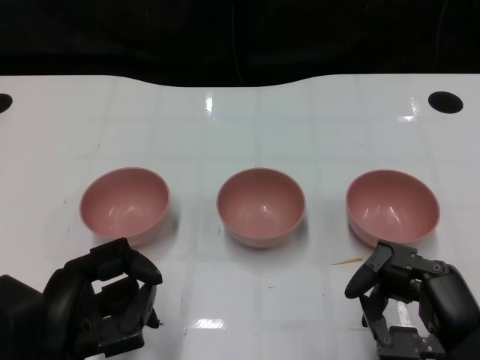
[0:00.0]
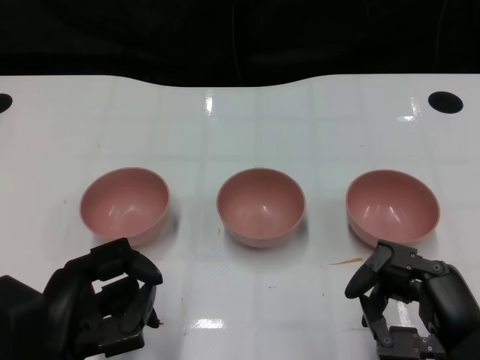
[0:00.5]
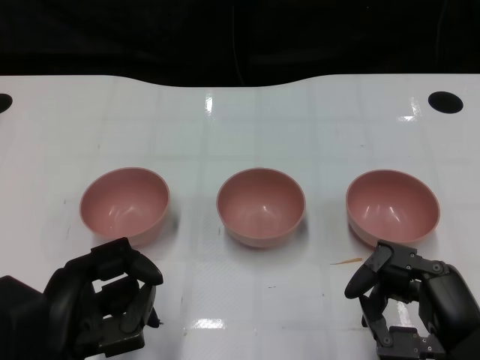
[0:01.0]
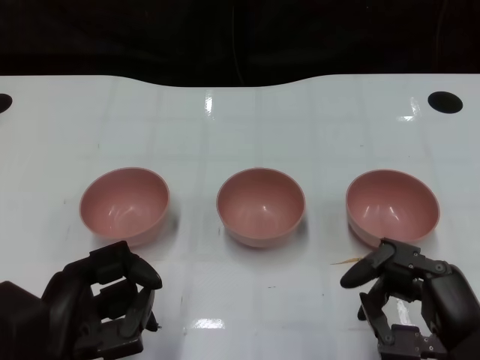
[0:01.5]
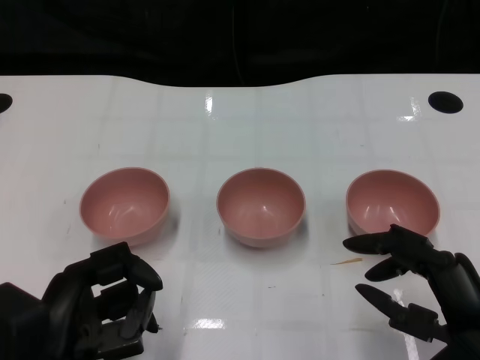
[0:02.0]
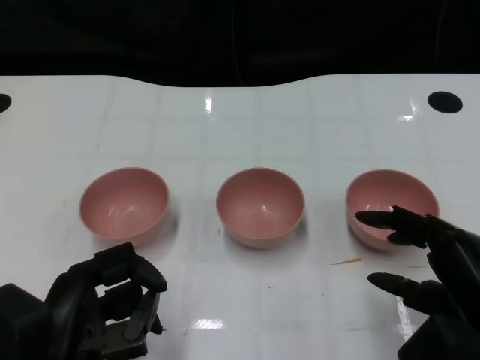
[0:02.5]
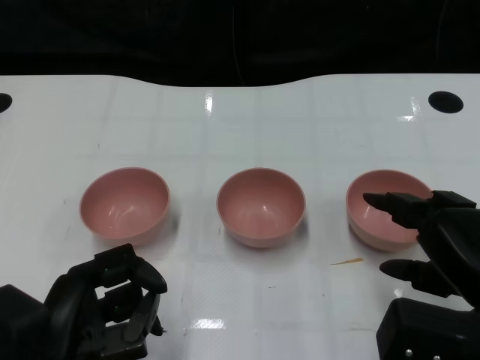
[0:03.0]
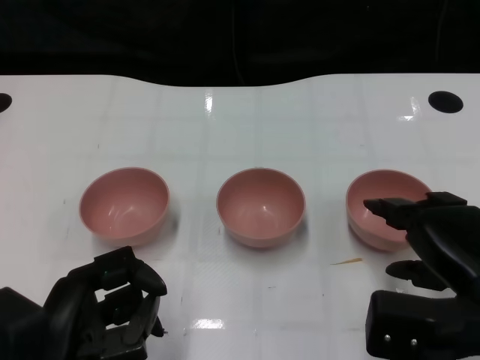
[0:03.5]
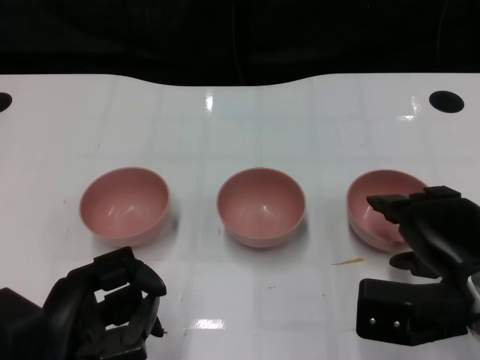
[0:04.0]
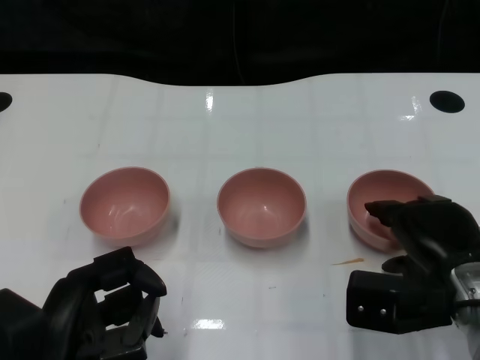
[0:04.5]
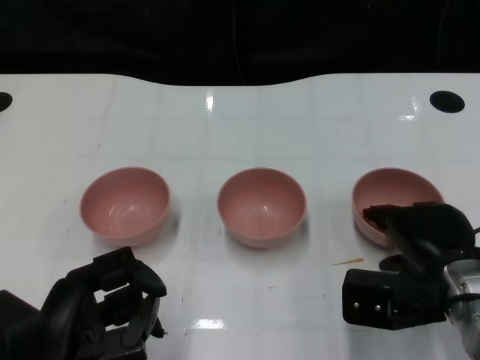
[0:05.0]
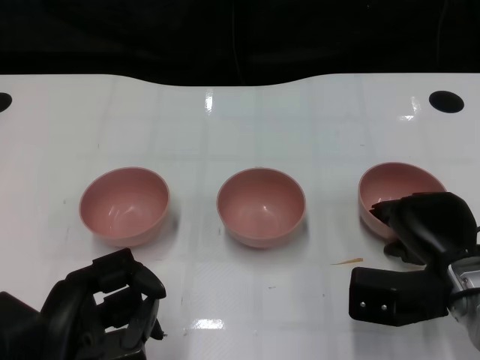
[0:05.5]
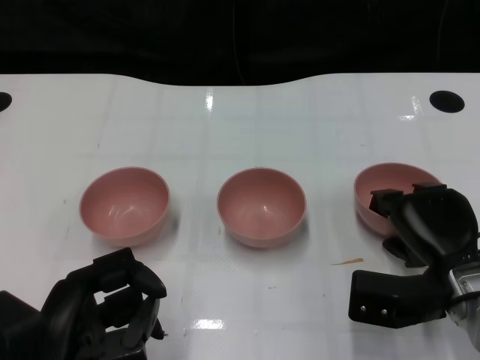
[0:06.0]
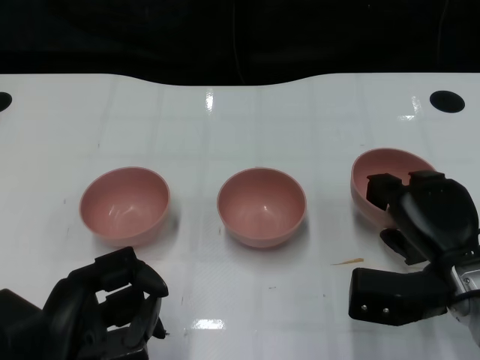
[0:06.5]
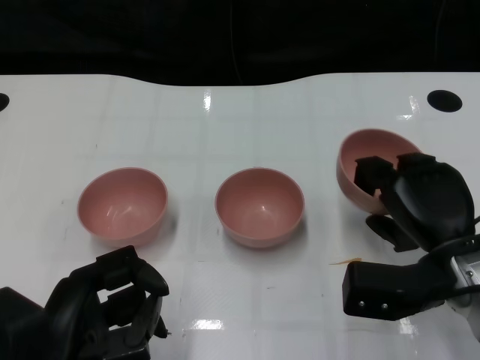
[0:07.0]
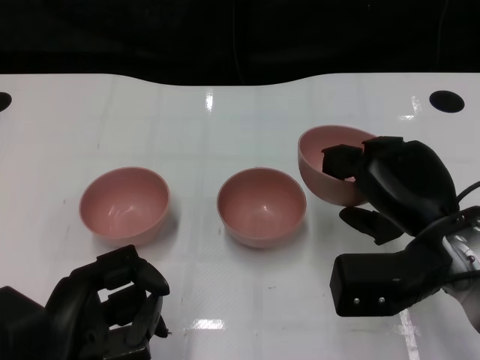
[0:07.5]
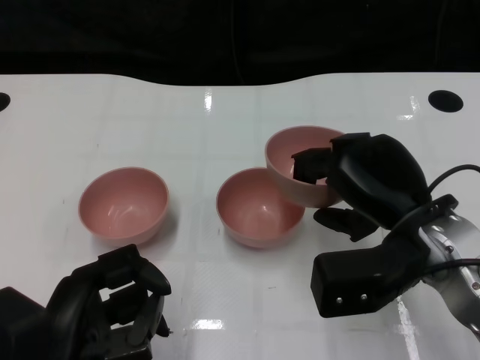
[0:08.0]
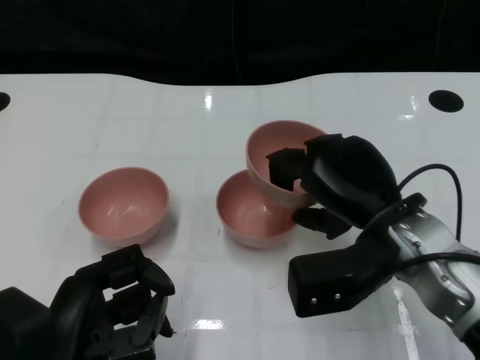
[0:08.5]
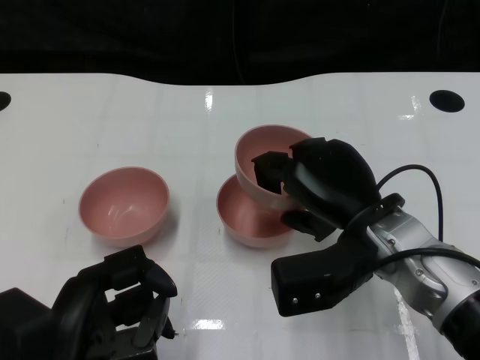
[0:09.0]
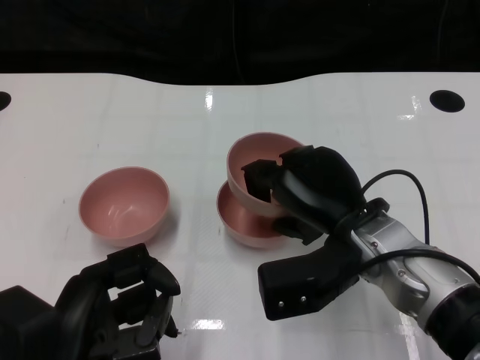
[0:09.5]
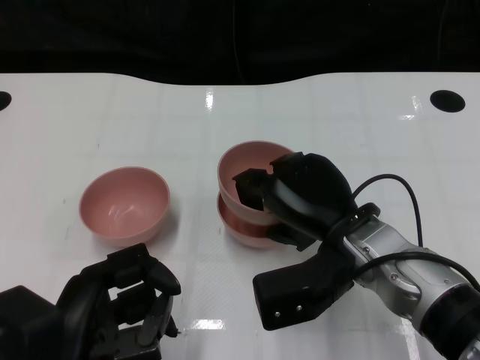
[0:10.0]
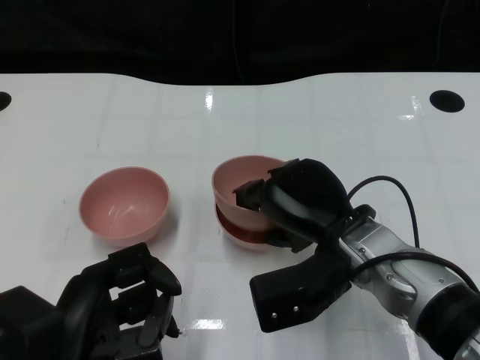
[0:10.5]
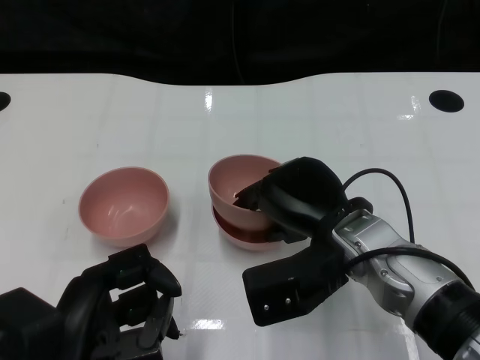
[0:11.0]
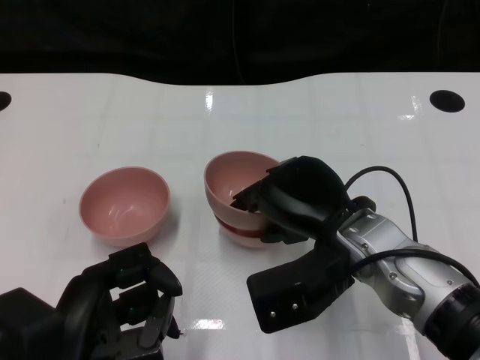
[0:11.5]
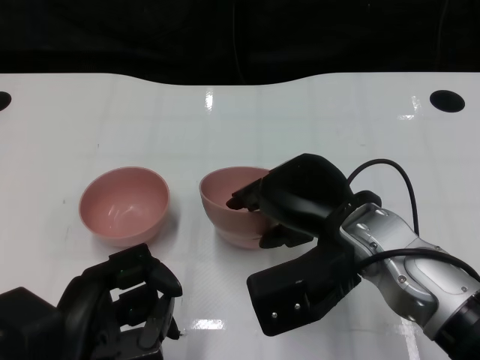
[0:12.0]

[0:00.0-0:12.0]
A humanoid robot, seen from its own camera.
Task of the whole recording: Pick up the bowl on one side of the table and place it on top of the middle bowl, then pick up the bowl on the other side of the table and place it on top of the middle bowls.
Step, 0:01.5 to 0:06.0: Grasp the bowl on the right with the right gripper.
0:02.0 to 0:04.0: The right hand is displaced forward by roughly 10 cm.
0:04.0 to 0:06.0: The right hand moves roughly 5 cm.
0:06.0 to 0:08.0: The right hand is displaced upward by roughly 10 cm.
0:08.0 to 0:10.0: The right hand shifts roughly 5 cm to the left.
0:10.0 to 0:12.0: The hands make only small movements.

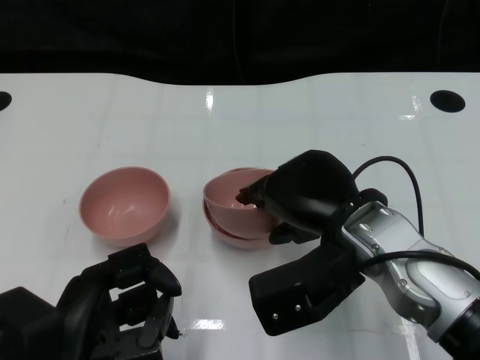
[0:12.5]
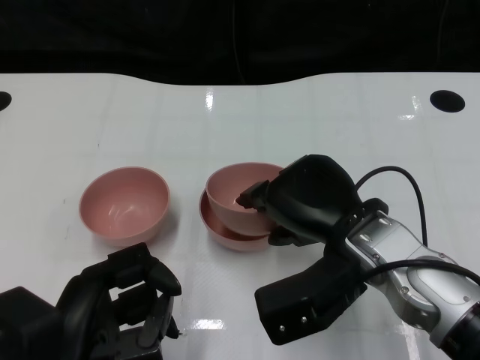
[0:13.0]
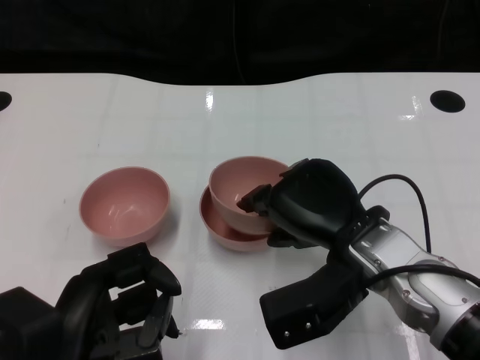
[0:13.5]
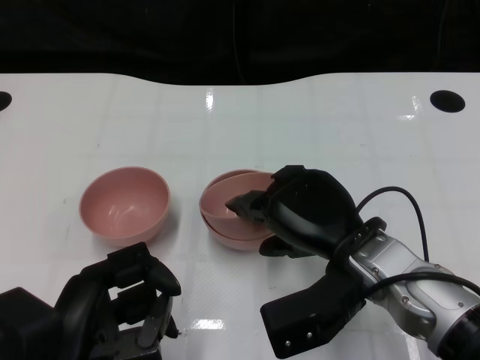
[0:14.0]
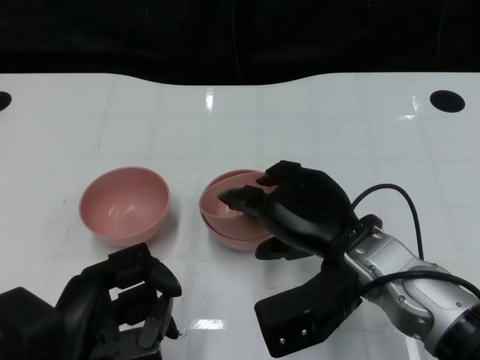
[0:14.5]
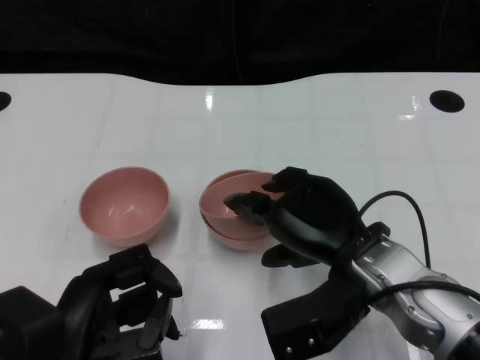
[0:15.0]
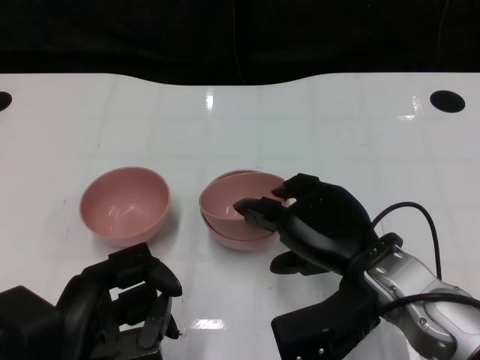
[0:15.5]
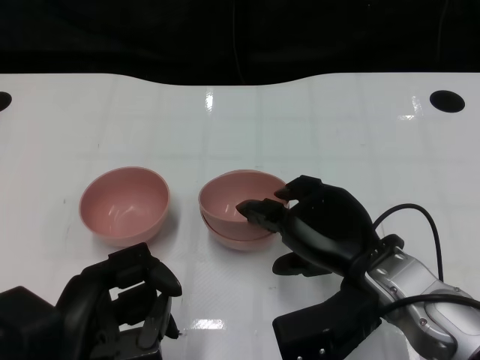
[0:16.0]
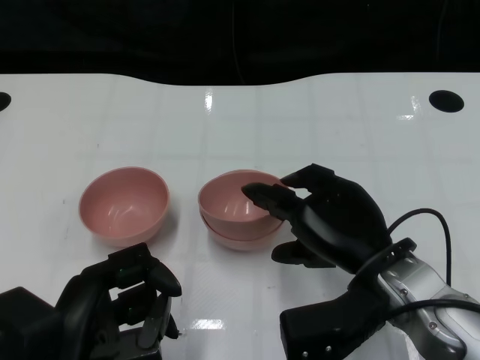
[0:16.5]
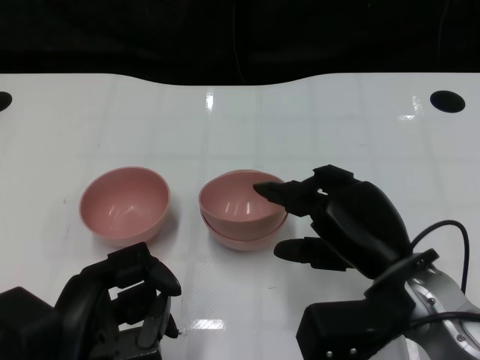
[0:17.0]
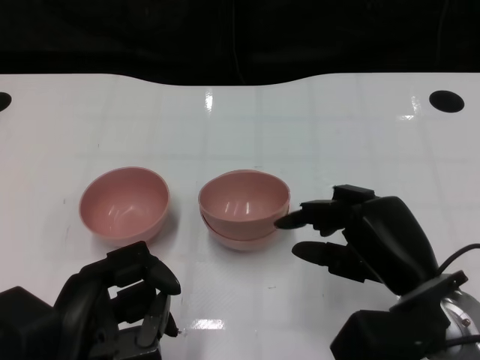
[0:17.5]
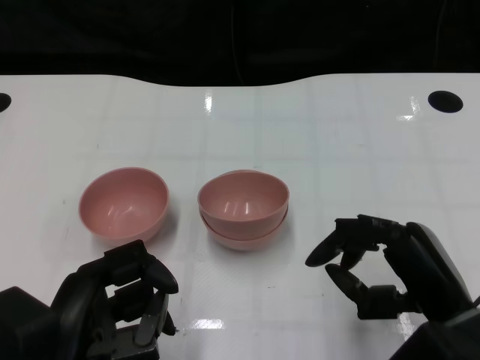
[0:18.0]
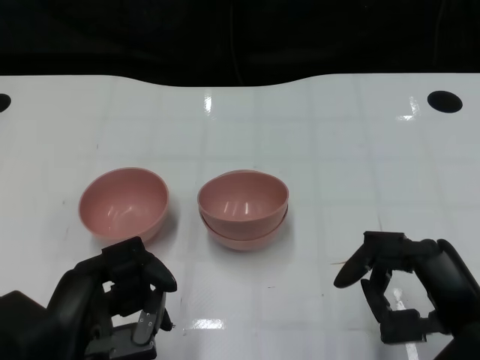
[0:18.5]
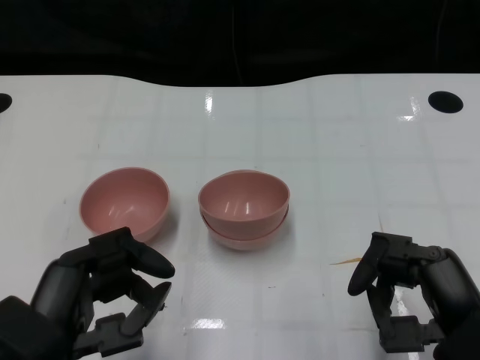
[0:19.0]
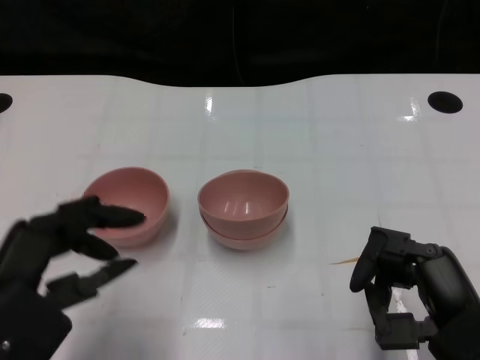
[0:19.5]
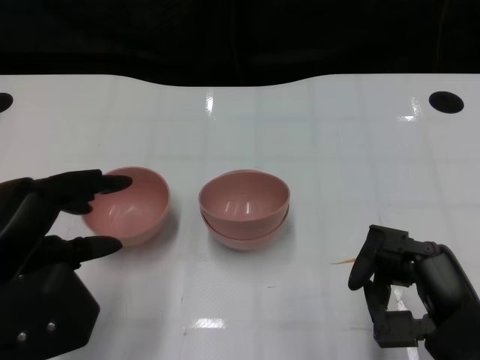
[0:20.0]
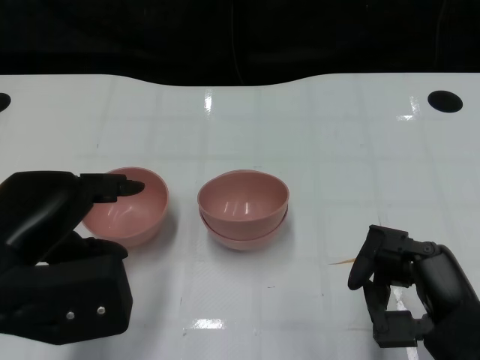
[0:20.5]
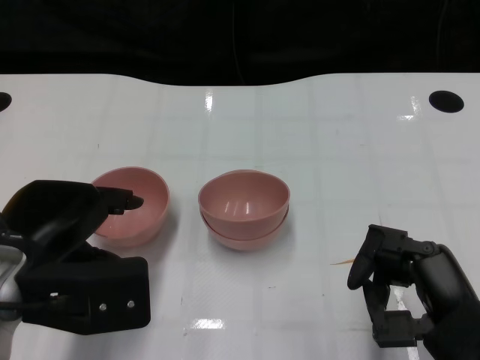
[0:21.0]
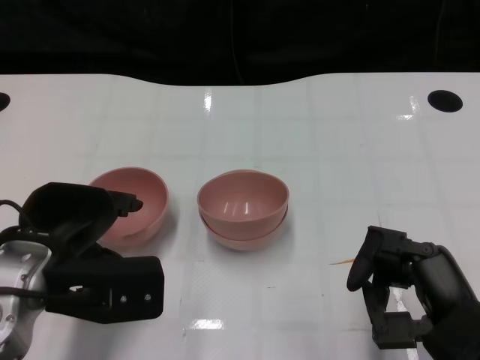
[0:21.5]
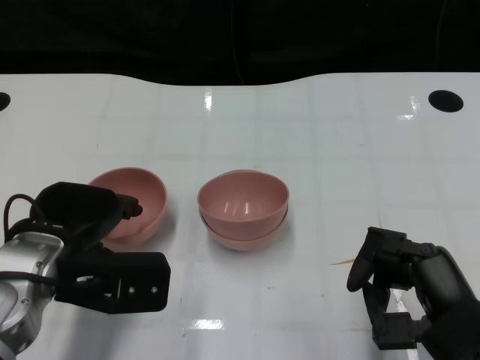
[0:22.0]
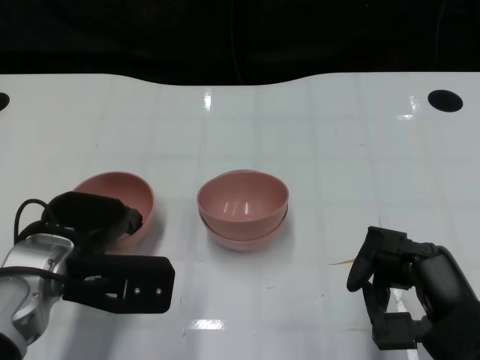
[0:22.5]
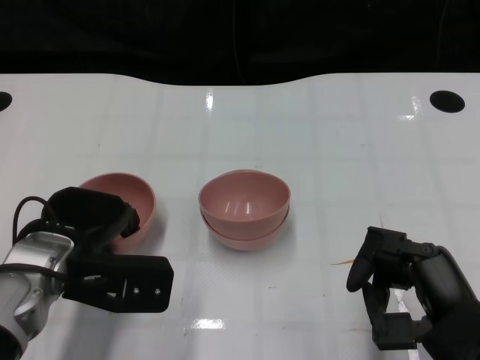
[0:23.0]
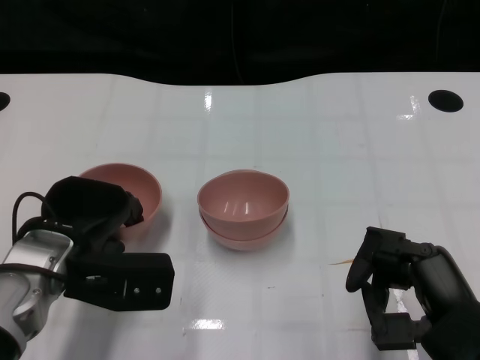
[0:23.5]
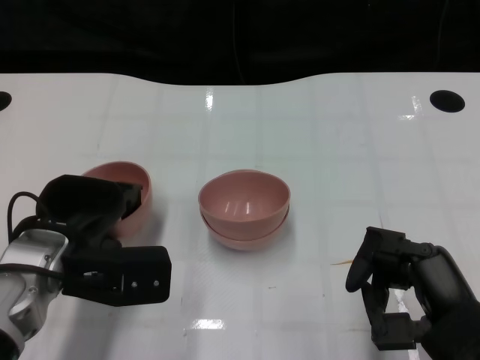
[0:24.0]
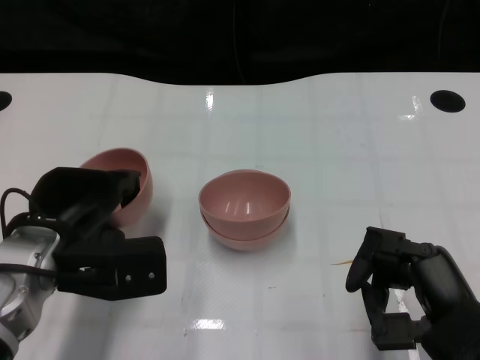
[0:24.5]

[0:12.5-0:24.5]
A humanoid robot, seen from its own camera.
Task of the whole recording: Pick up the bowl on one side of the table and place it on top of the middle bowl, then pick up the bowl on the other side of the table and place it on top of the middle bowls.
Step, 0:12.5 to 0:16.5: Place the bowl on the right onto the bowl in the middle with right gripper.
Step, 0:17.0 to 0:24.0: Grasp the bowl on the left with the left gripper.
0:12.5 to 0:16.5: The hands make only small movements.
0:16.5 to 0:18.5: The right hand travels to the right and backward by some 10 cm.
0:18.5 to 0:20.5: The left hand goes about 10 cm forward and upward.
0:20.5 to 0:22.5: The left hand goes roughly 10 cm downward and forward.
0:22.5 to 0:24.5: The hands stay close to where they were, moving slightly.

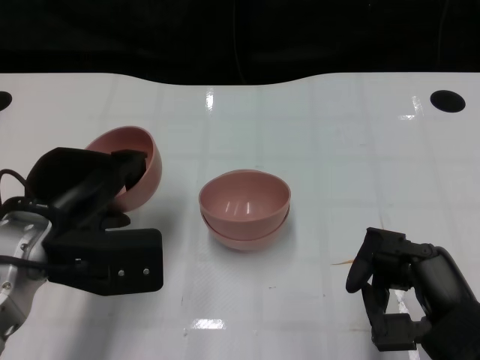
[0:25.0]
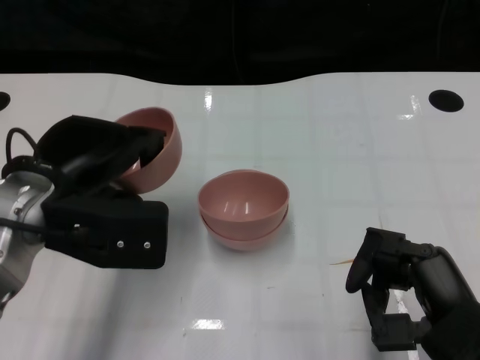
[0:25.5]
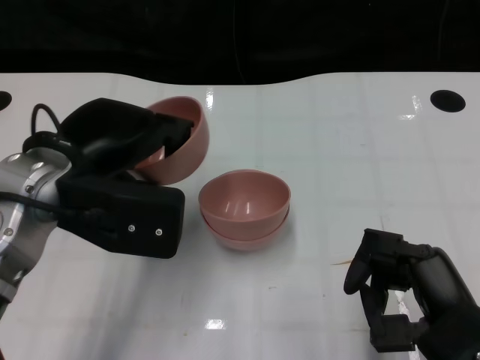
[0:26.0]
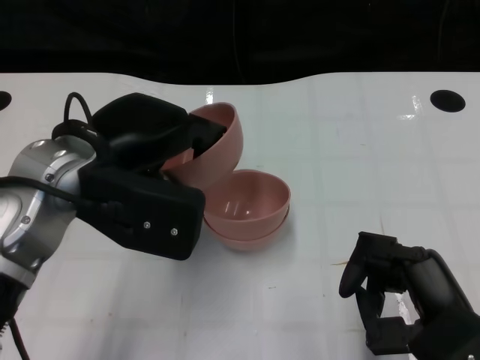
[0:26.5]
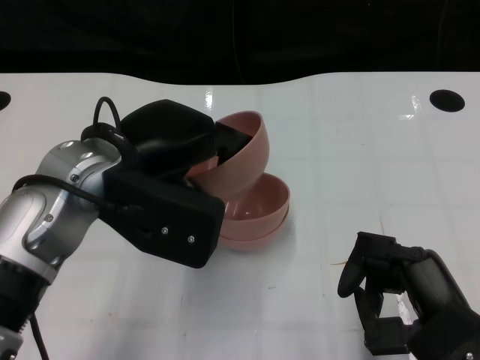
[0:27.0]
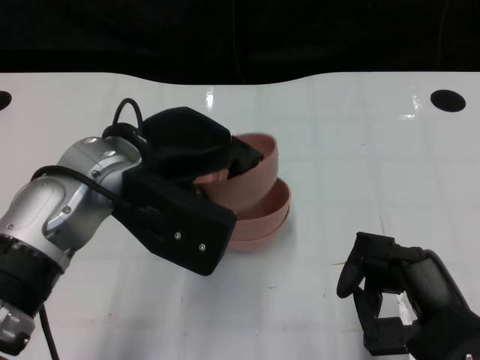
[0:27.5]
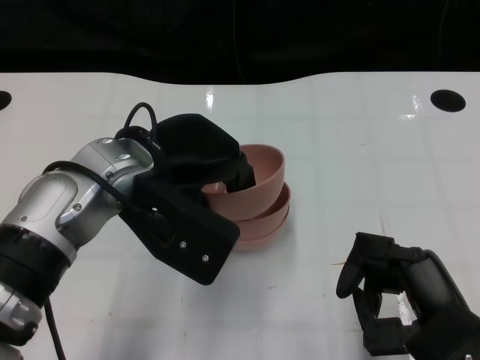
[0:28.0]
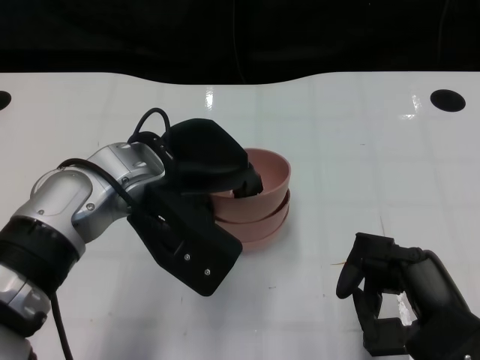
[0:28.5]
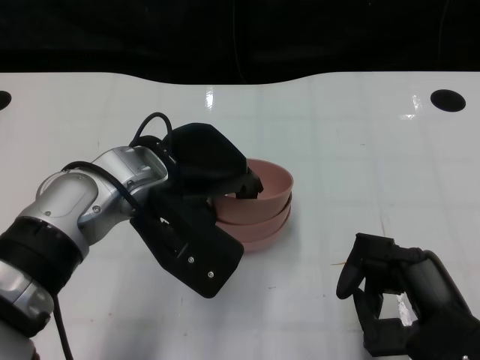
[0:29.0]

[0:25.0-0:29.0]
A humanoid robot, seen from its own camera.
Task of the whole recording: Pick up the bowl on one side of the table and place it on top of the middle bowl, then pick up the bowl on the other side of the table and place it on top of the middle bowls.
0:25.0 to 0:27.0: The left hand heads upward and to the right, covering some 10 cm.
